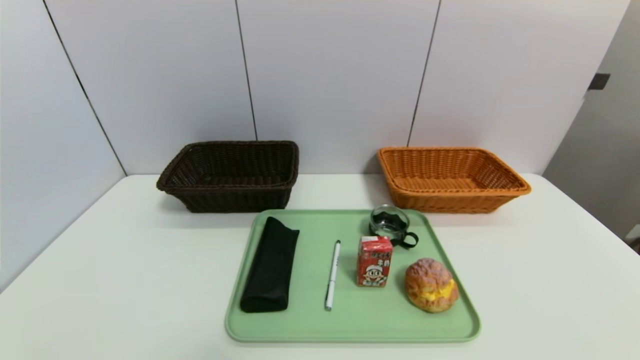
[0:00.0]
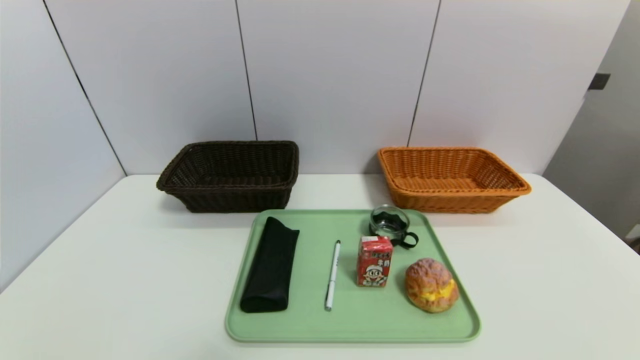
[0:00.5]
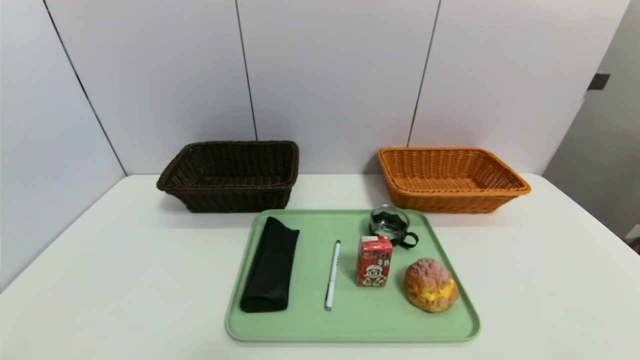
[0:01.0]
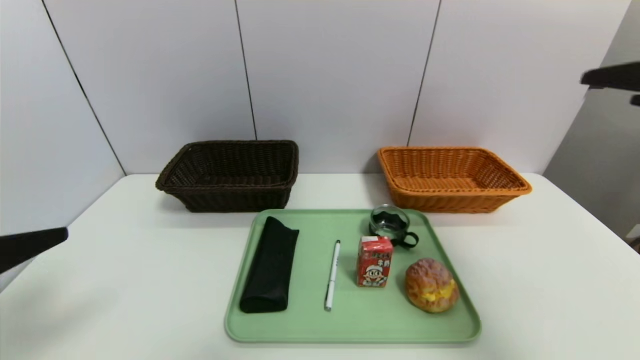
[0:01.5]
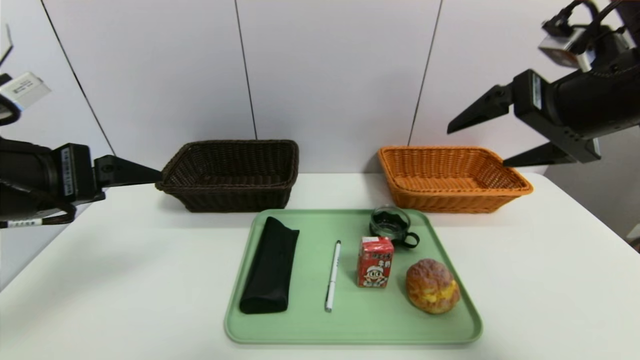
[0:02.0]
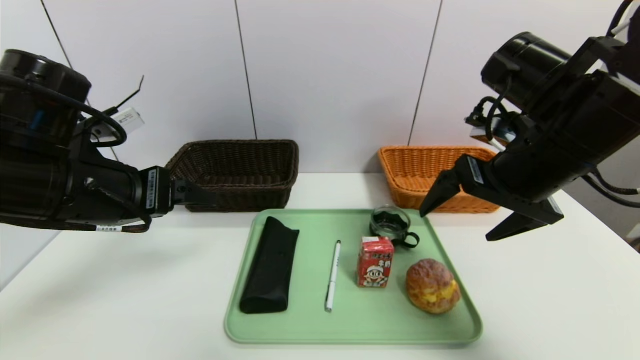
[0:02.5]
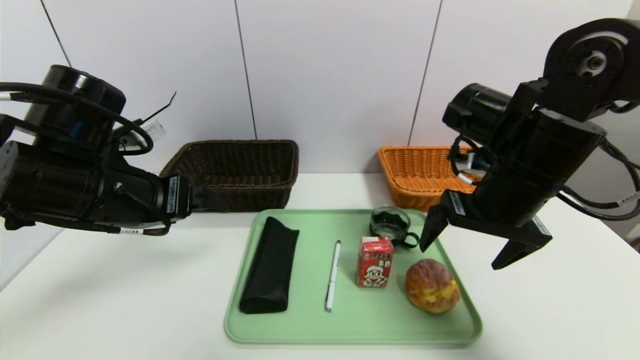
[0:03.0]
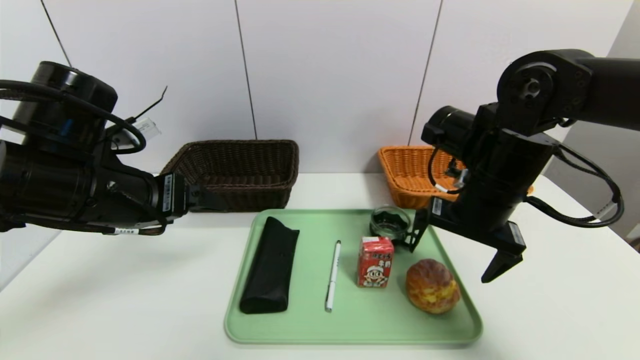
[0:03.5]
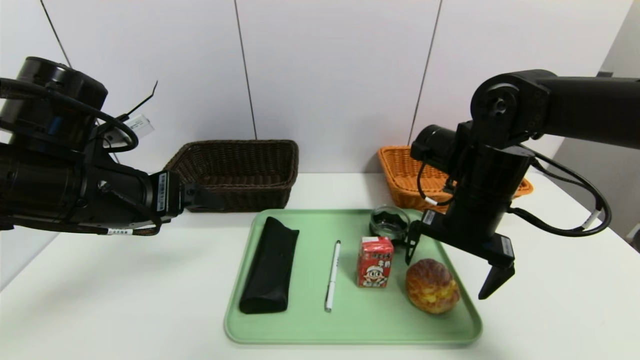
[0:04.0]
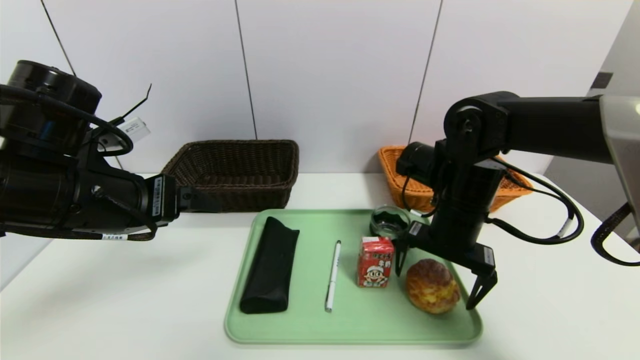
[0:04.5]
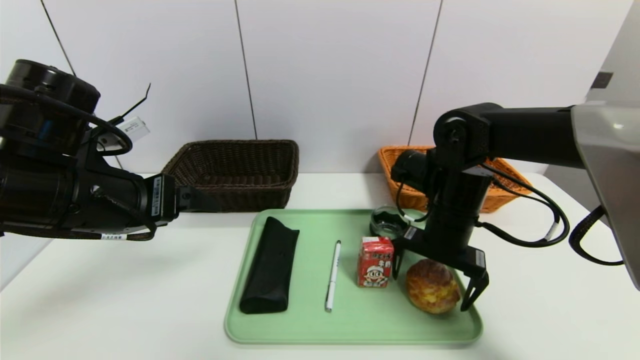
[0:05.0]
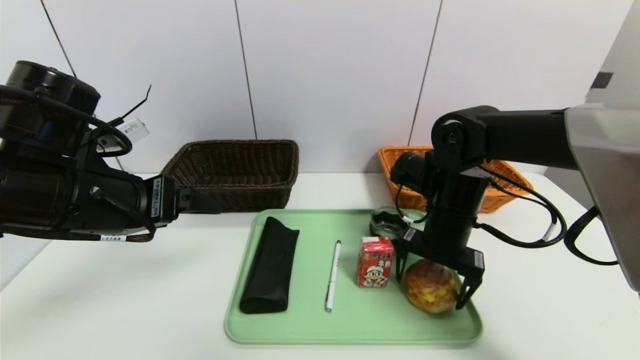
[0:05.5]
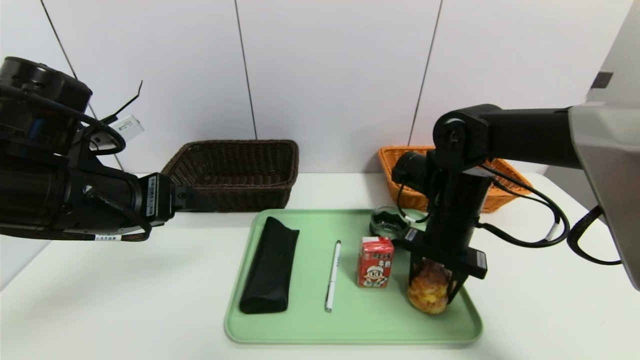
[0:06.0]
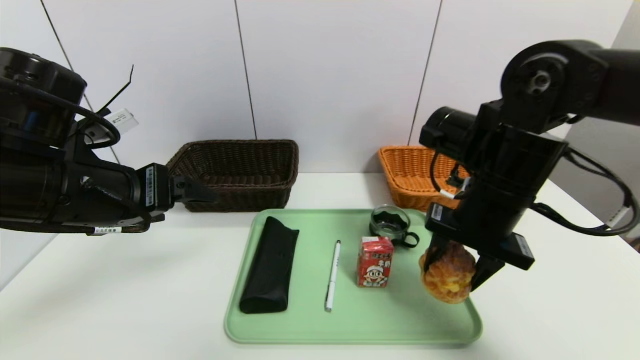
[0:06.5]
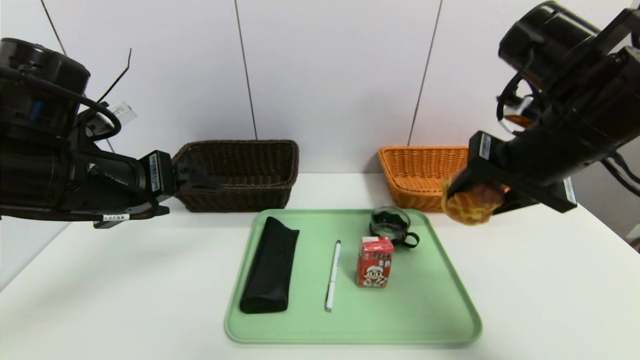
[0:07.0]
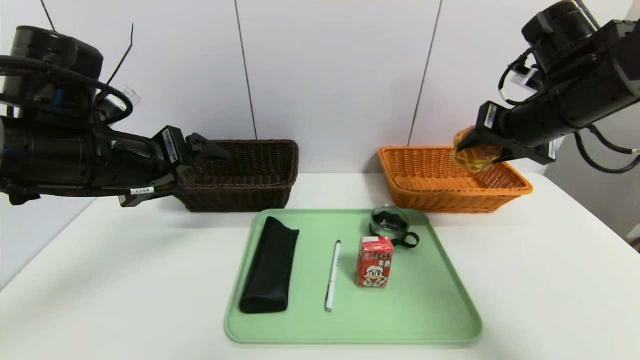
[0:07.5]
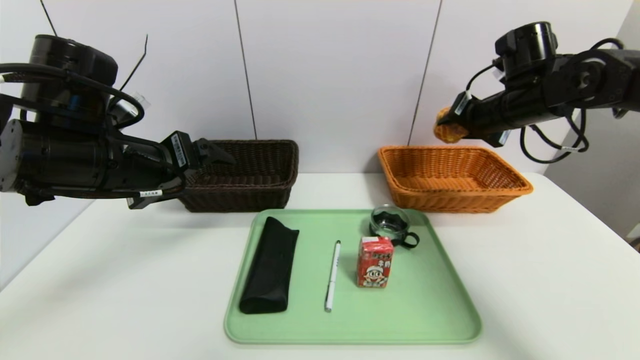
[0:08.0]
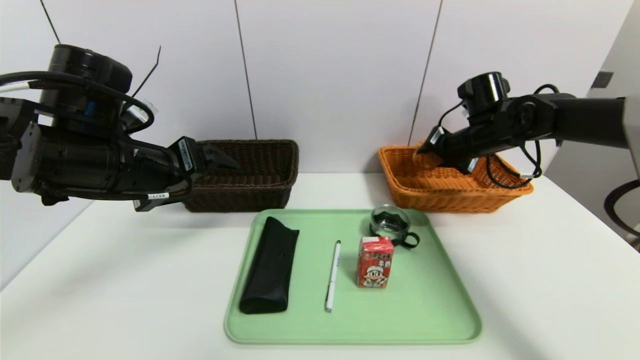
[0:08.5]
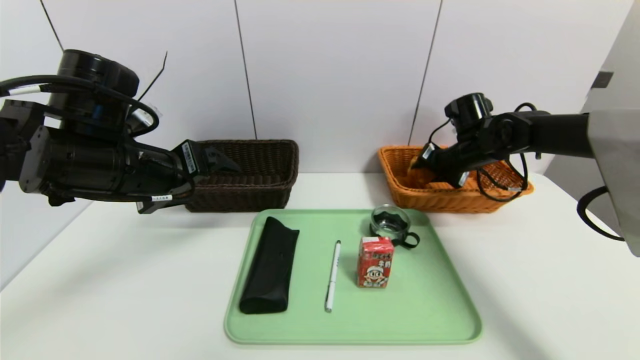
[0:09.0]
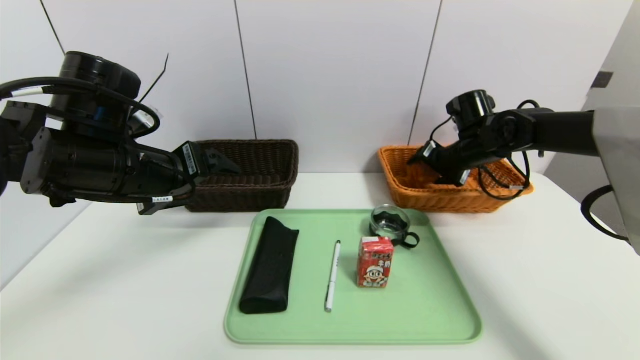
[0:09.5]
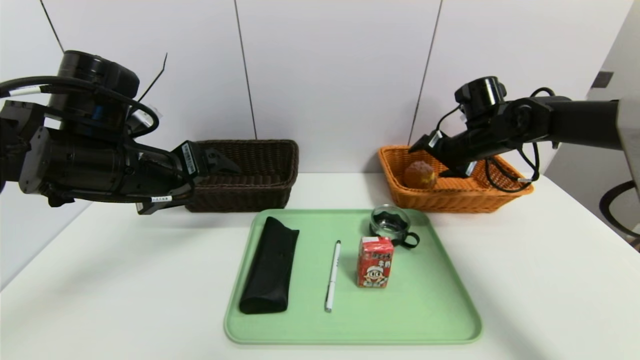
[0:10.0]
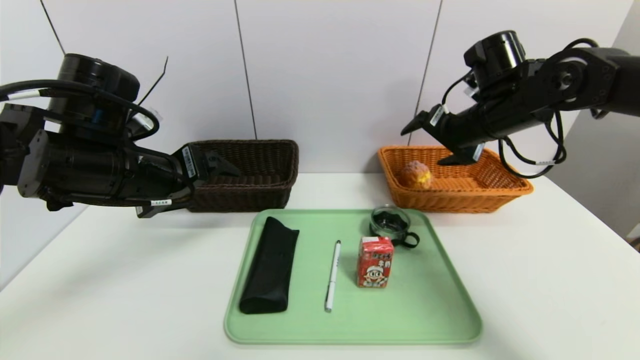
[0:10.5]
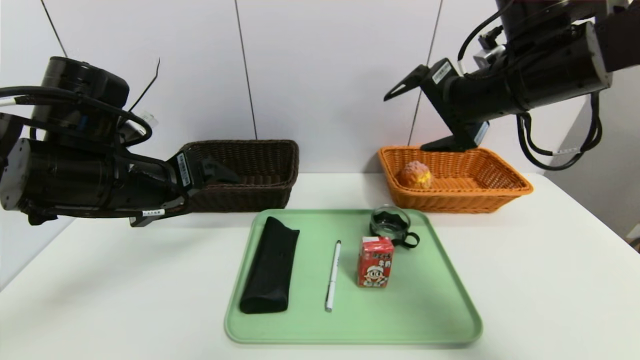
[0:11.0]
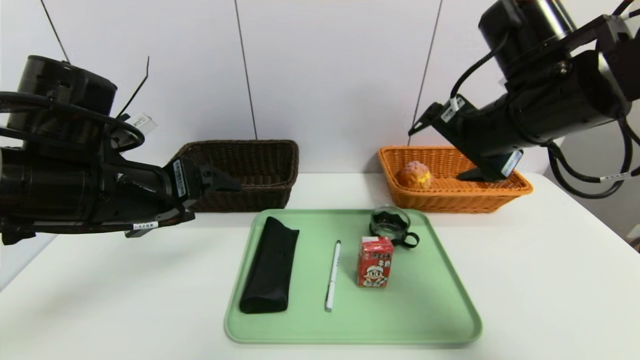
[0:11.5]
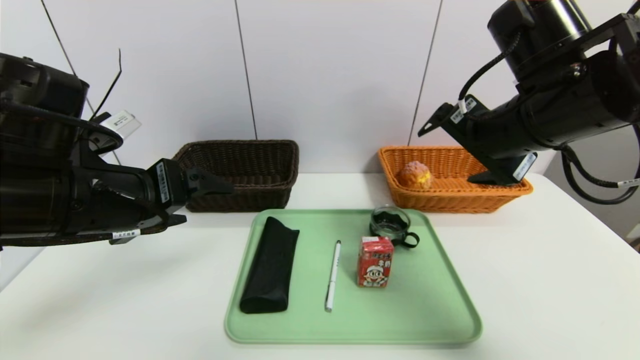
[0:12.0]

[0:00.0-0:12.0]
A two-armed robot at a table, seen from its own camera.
Task of the whole recording: place the food in the right basket with the right gripper, and place the non food items in the left basket with the left gripper.
Step, 0:00.0 to 0:10.0: Grasp the round bread and put it in the right basket.
0:00.0 to 0:02.0: The grippers both shift upward and forward by approximately 35 cm.
0:02.0 to 0:04.0: The left gripper changes place by about 5 cm. Meanwhile the right gripper goes about 15 cm downward, forward and to the left.
0:04.0 to 0:06.0: The right gripper closes.
0:06.0 to 0:08.0: The right gripper shifts about 15 cm upward, to the right and forward.
0:08.0 to 0:10.0: The right gripper heads downward, covering roughly 5 cm, and opens its fingers.
0:10.0 to 0:12.0: The left gripper travels backward by approximately 5 cm, while the right gripper heads backward, upward and to the left, covering some 20 cm.

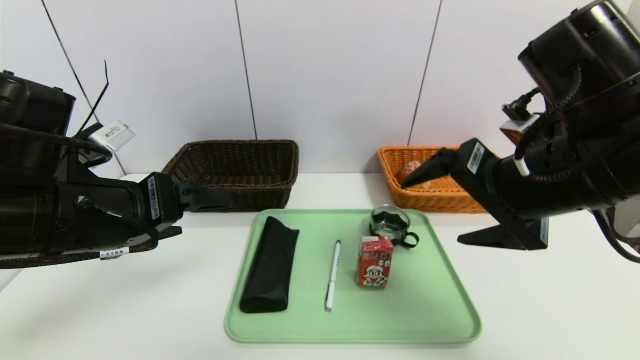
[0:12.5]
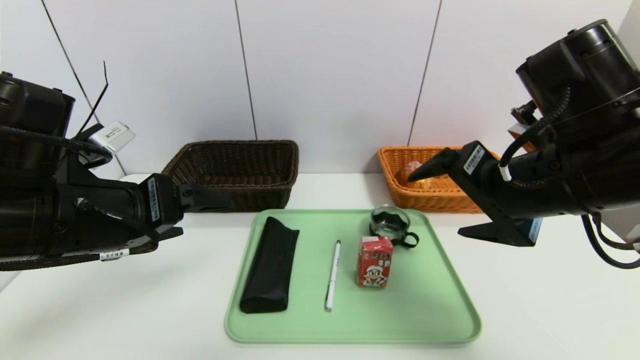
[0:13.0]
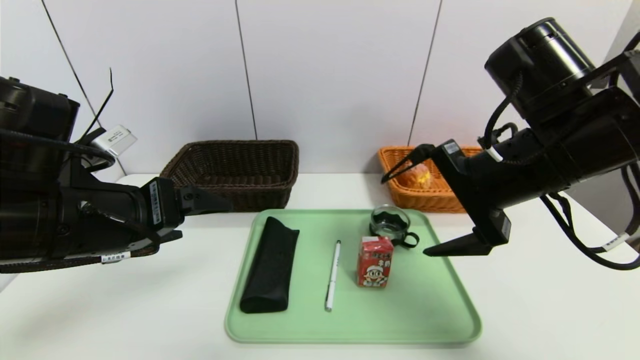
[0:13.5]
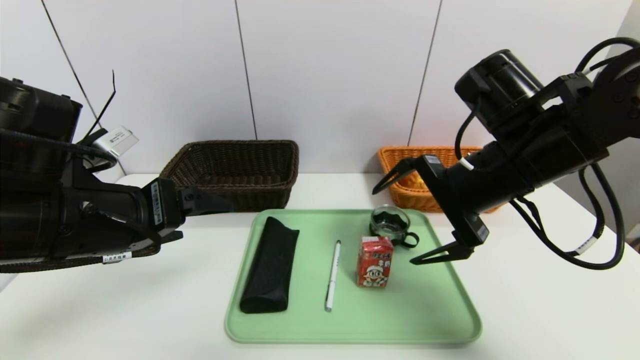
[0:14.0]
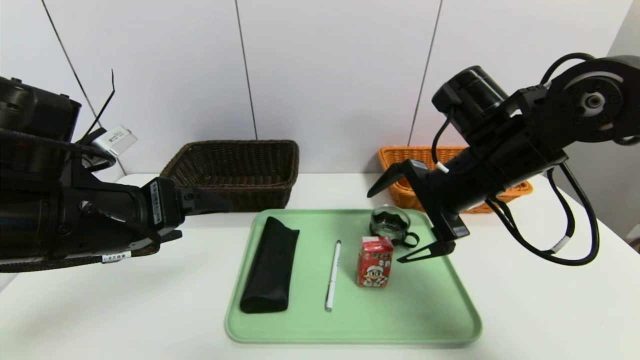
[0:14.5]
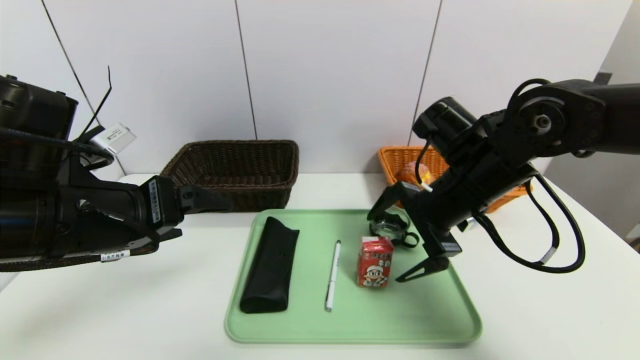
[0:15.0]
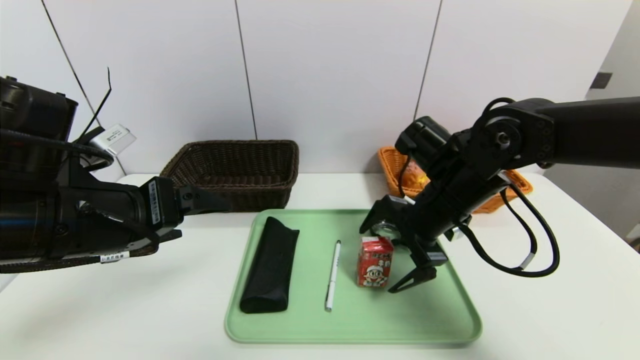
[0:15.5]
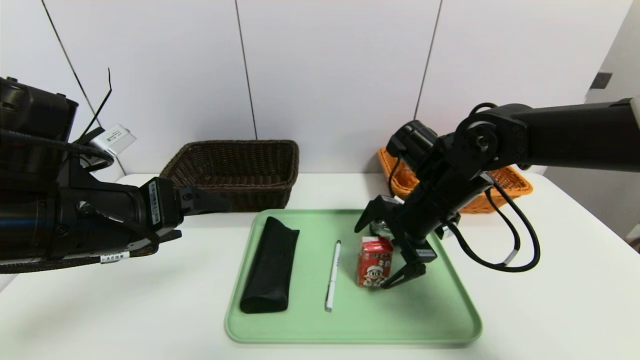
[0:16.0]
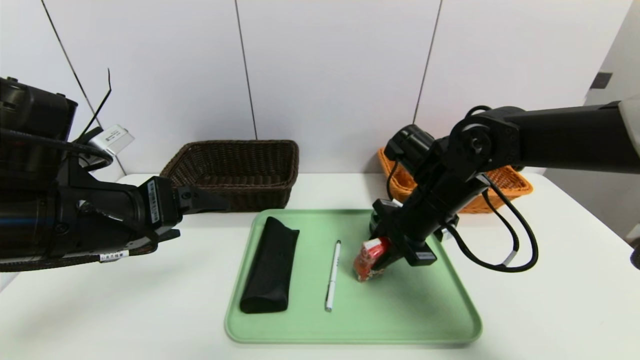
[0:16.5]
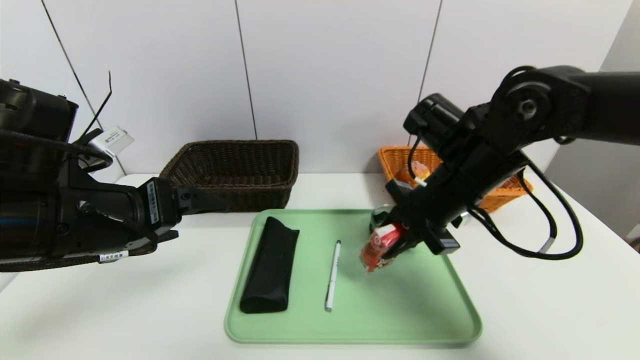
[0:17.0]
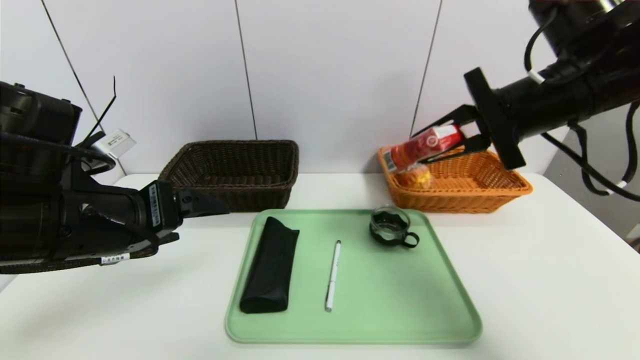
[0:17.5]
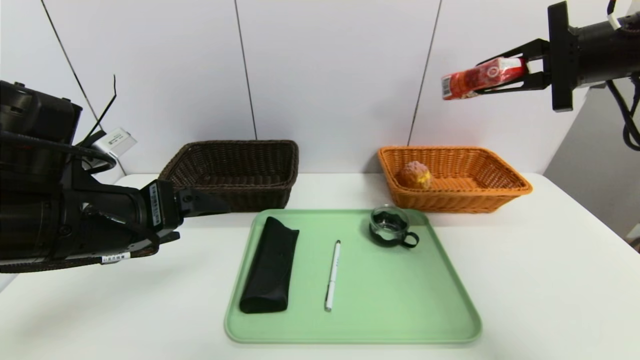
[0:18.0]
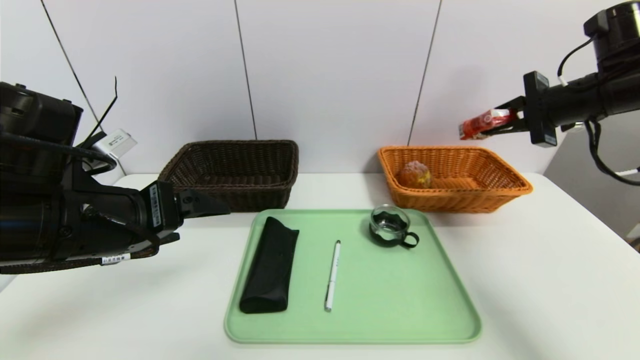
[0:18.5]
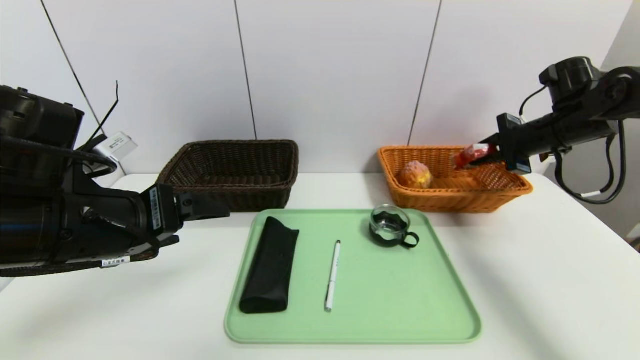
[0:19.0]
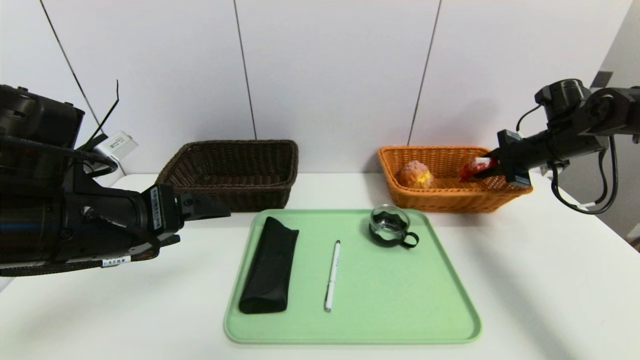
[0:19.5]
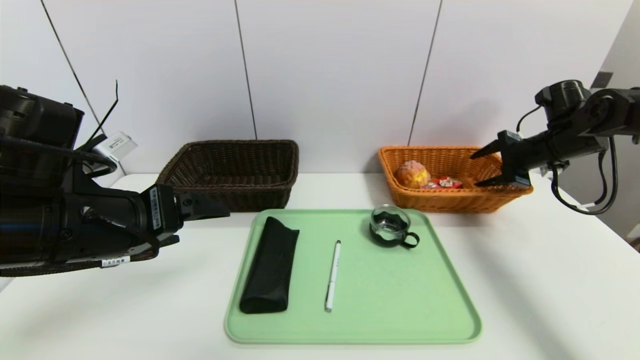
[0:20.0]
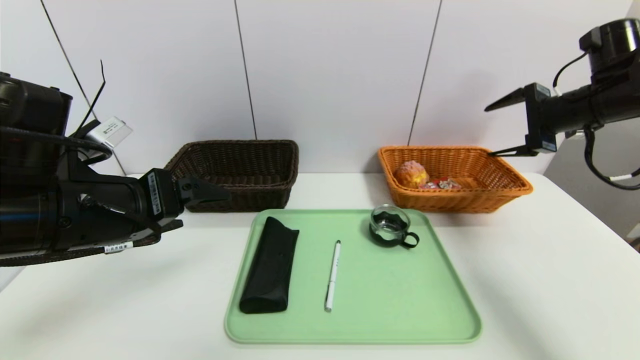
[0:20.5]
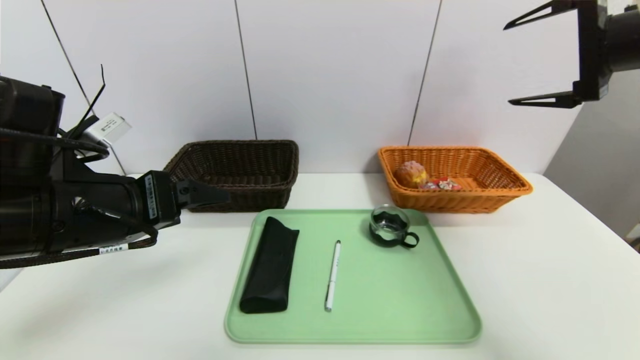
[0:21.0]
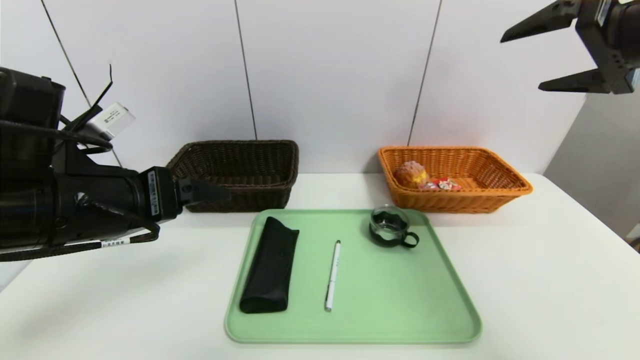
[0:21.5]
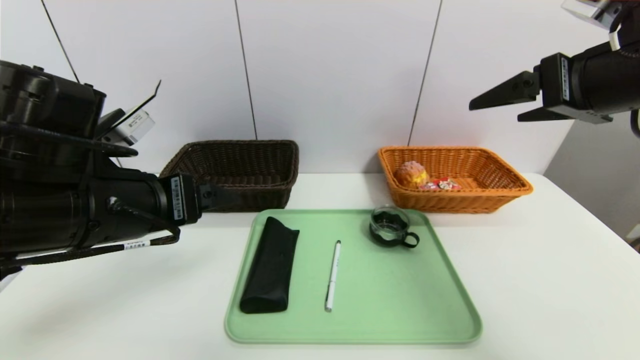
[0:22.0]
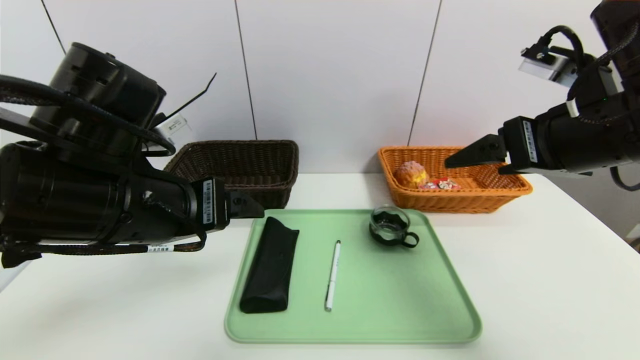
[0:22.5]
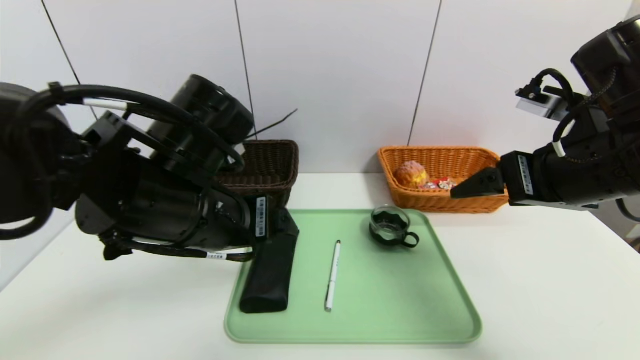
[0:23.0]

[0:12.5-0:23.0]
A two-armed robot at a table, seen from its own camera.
Task of the whole recording: place the food in the right basket with the right gripper, and place the non food items in the left basket with the left gripper.
Step, 0:12.5 to 0:20.0: Grasp the ad milk and put it in the right basket.
0:12.5 to 0:14.5: The right gripper goes roughly 10 cm forward.
0:14.5 to 0:16.5: The right gripper is displaced downward by approximately 5 cm, and closes.
0:16.5 to 0:19.0: The right gripper shifts approximately 25 cm to the right and forward.
0:19.0 to 0:21.0: The right gripper moves upward and backward, some 20 cm, and opens up.
0:21.0 to 0:23.0: The left gripper goes approximately 10 cm to the right. The right gripper goes about 15 cm downward, to the left and backward.
